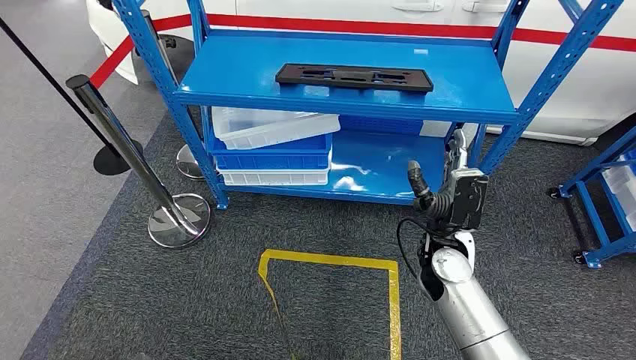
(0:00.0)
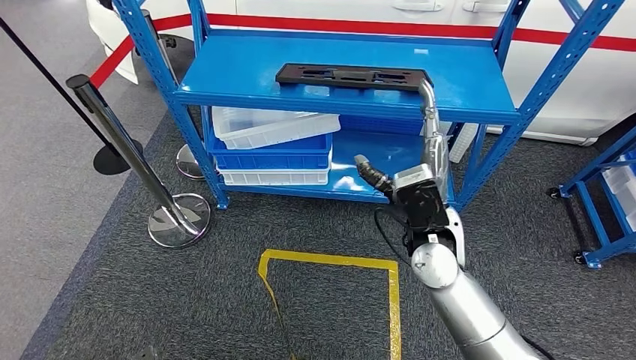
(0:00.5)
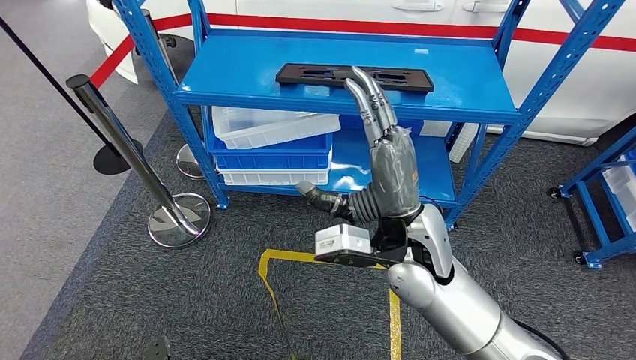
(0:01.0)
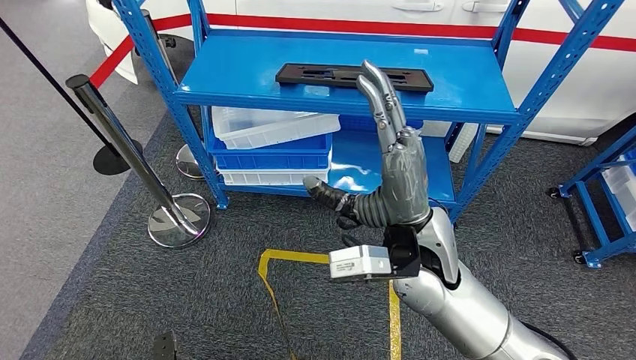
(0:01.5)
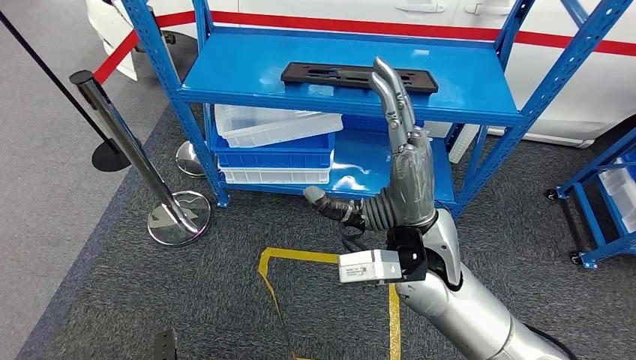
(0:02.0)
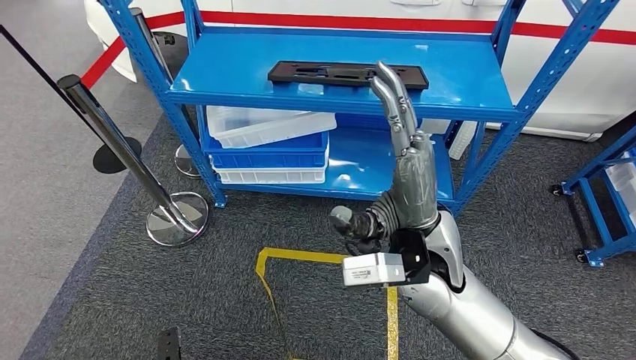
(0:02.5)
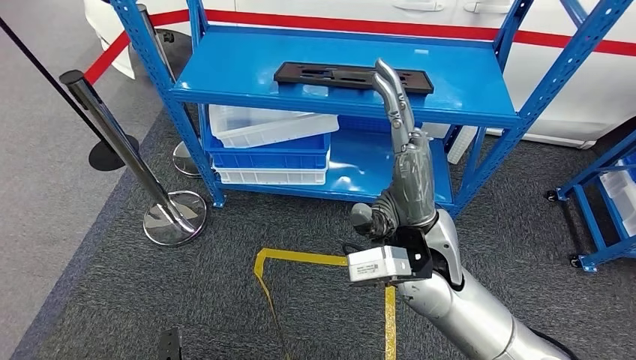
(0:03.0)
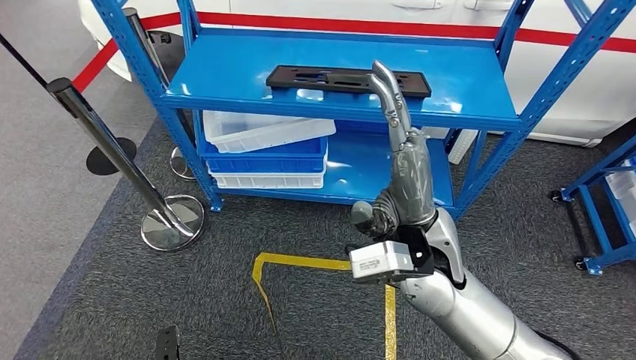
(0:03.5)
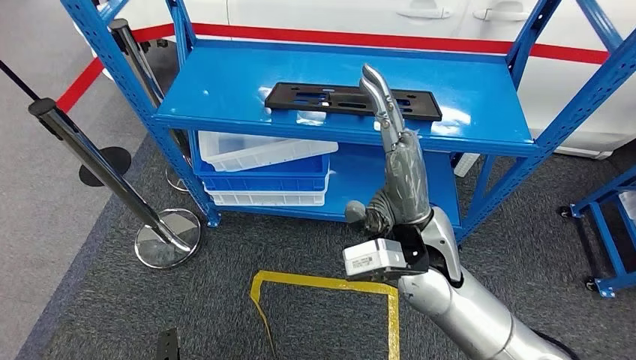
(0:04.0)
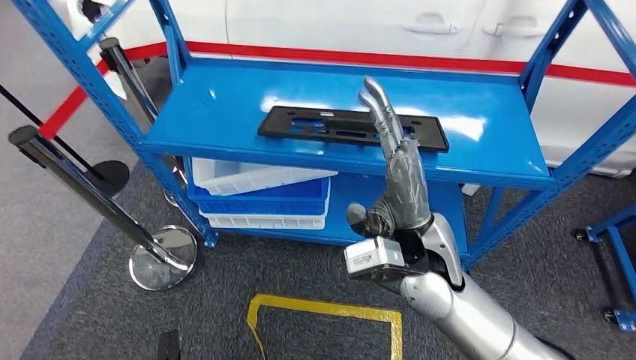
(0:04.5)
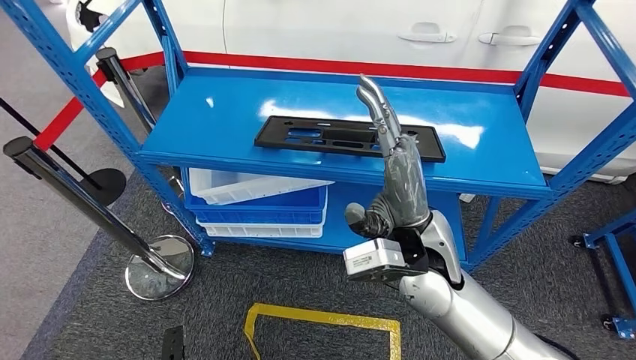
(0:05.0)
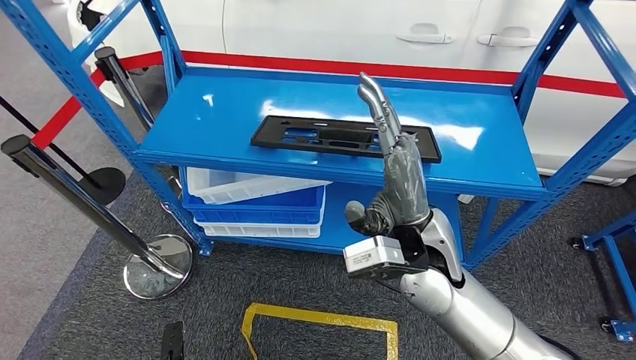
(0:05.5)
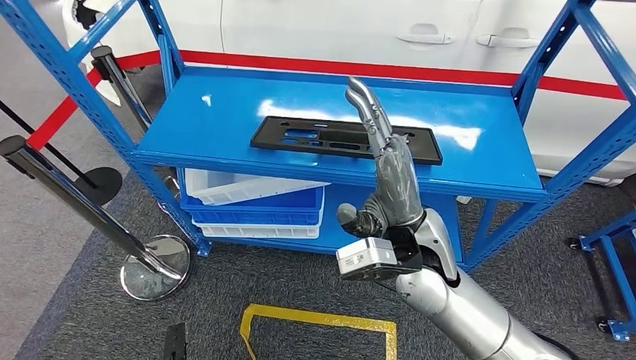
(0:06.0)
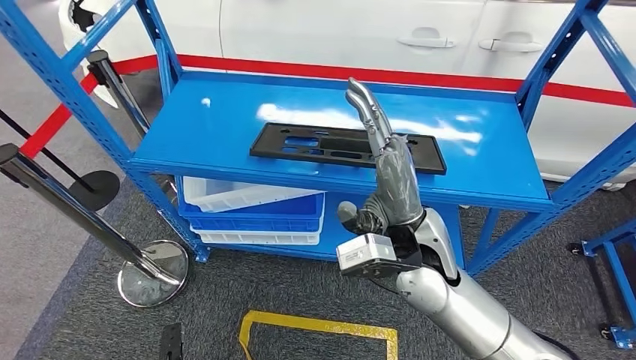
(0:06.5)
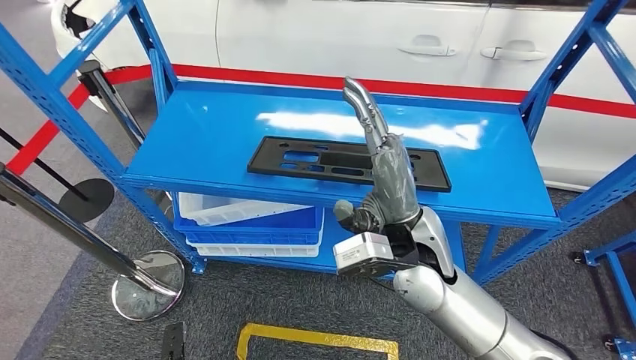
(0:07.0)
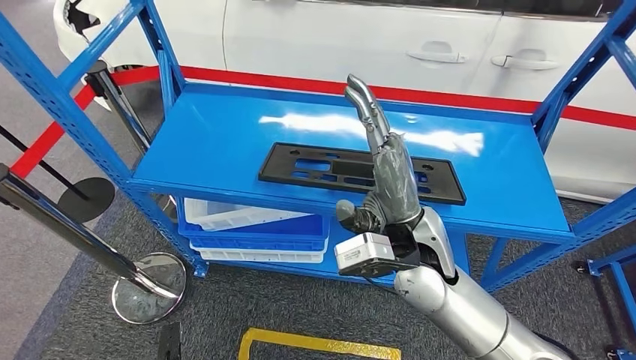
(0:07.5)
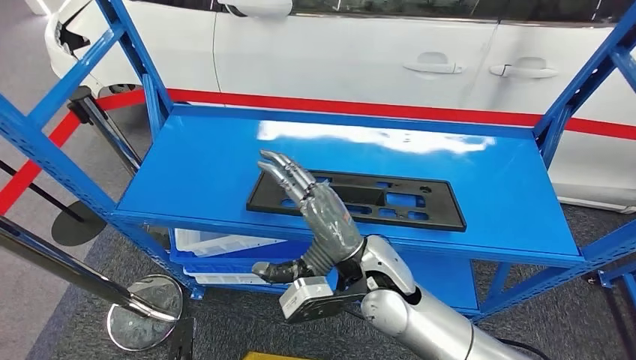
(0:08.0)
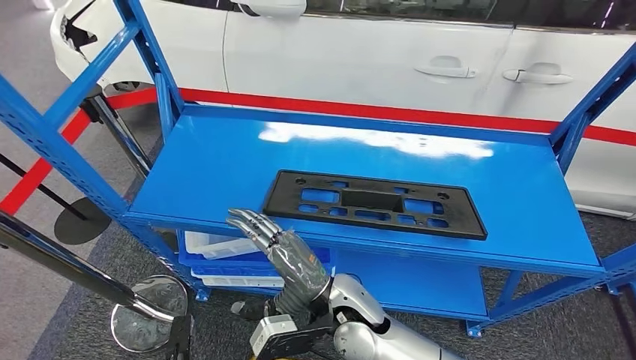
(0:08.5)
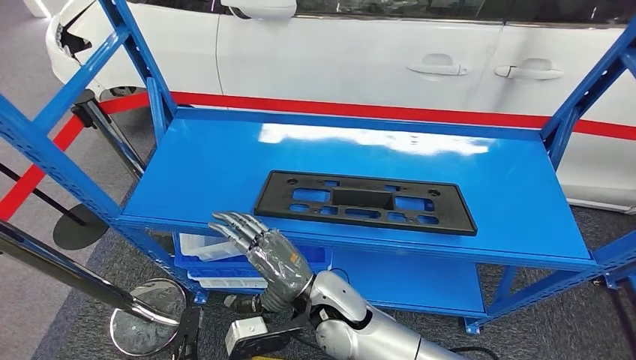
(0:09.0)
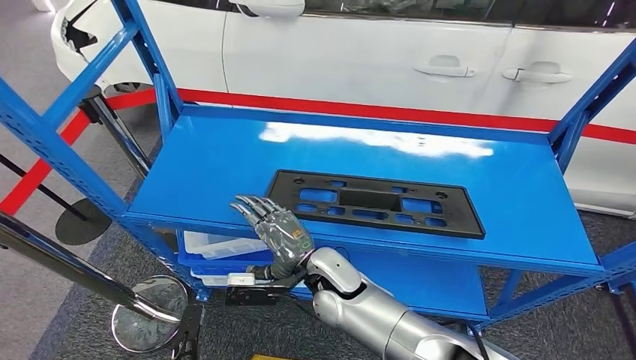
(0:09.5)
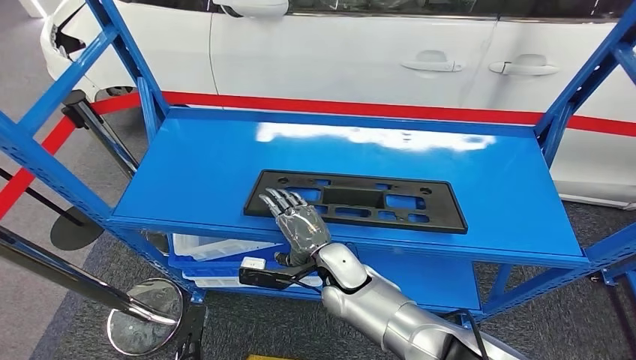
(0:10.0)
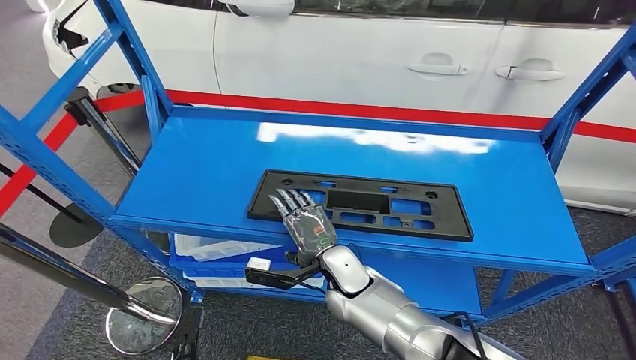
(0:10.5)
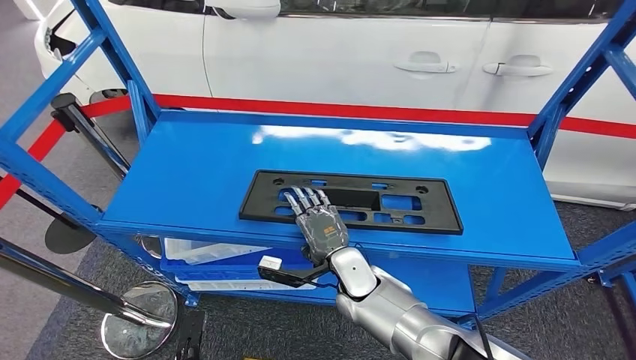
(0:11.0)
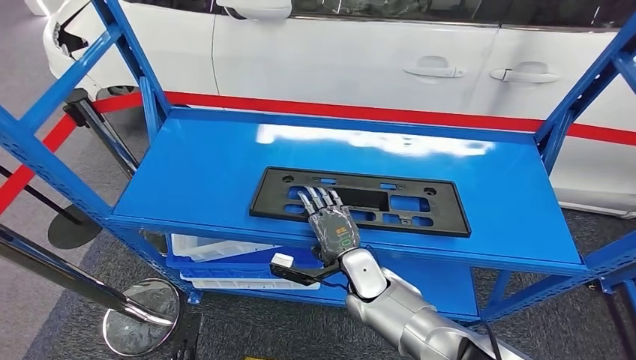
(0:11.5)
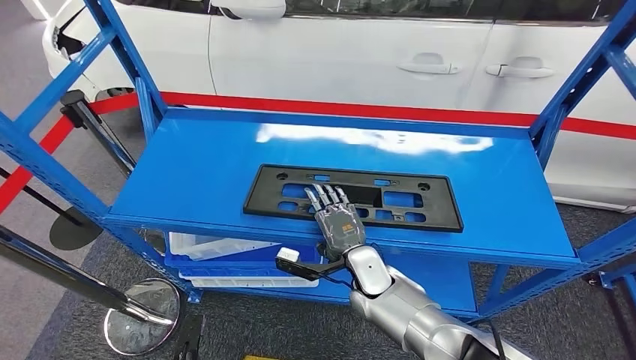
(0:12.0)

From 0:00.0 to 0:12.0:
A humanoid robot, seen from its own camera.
From 0:10.0 to 0:12.0: The right hand moves to the right, about 5 cm.

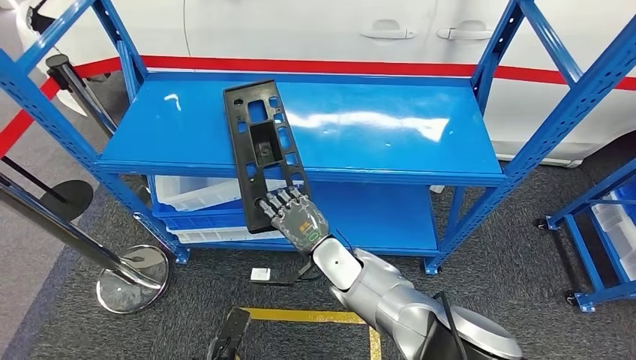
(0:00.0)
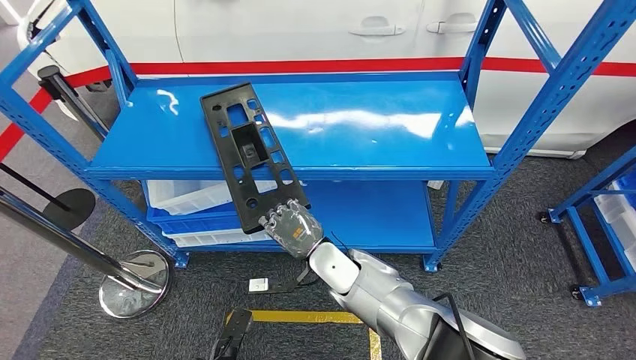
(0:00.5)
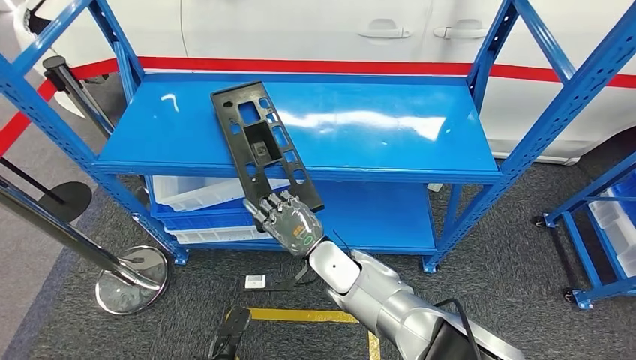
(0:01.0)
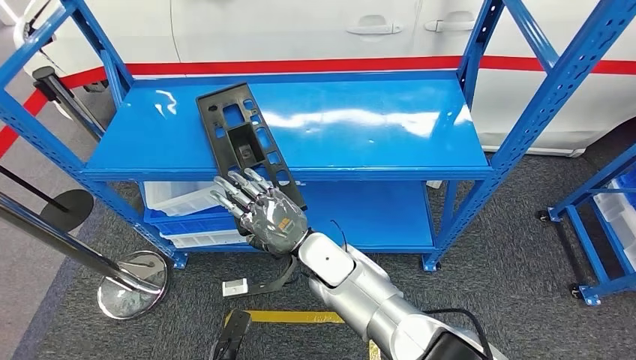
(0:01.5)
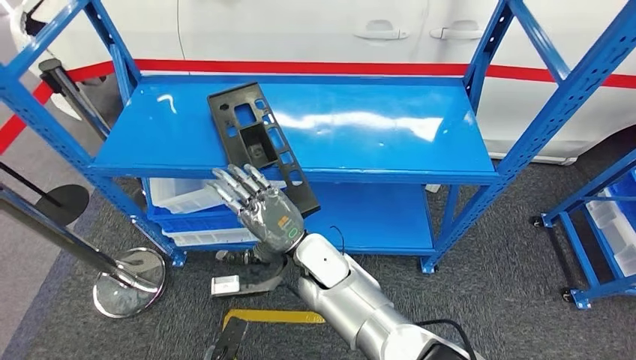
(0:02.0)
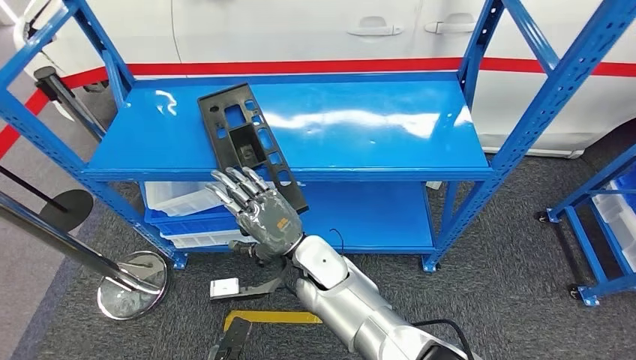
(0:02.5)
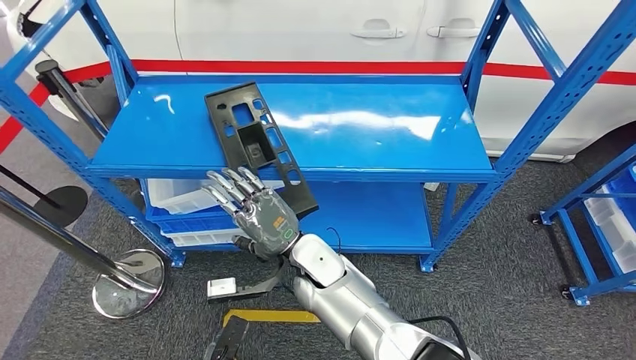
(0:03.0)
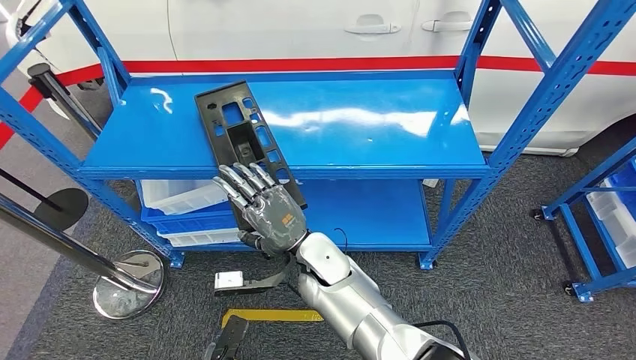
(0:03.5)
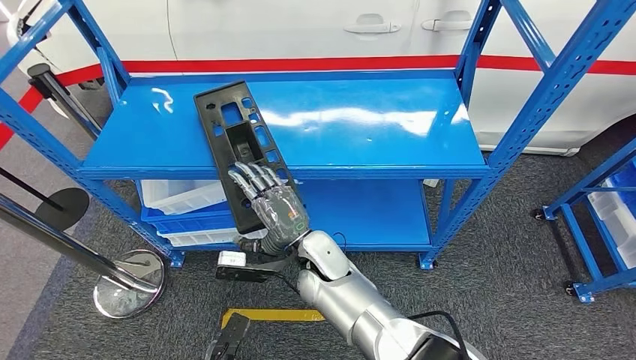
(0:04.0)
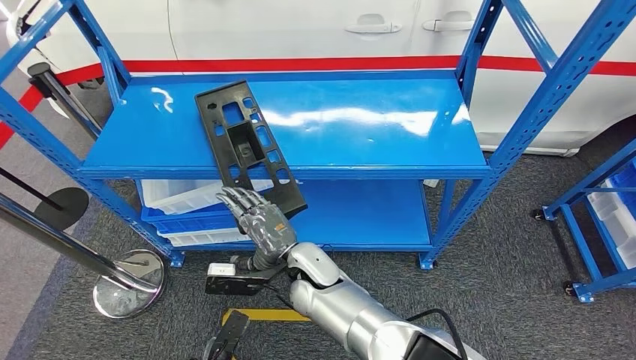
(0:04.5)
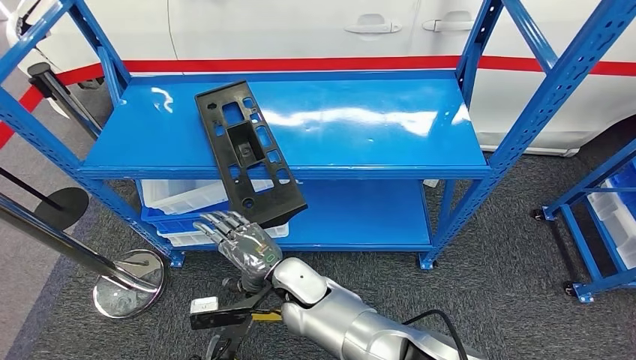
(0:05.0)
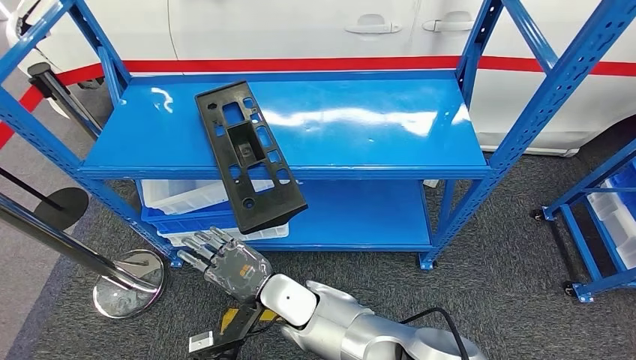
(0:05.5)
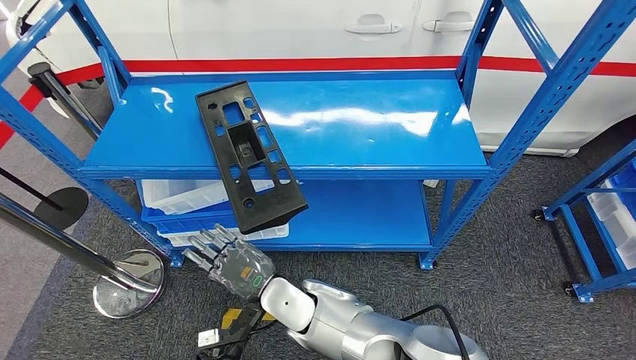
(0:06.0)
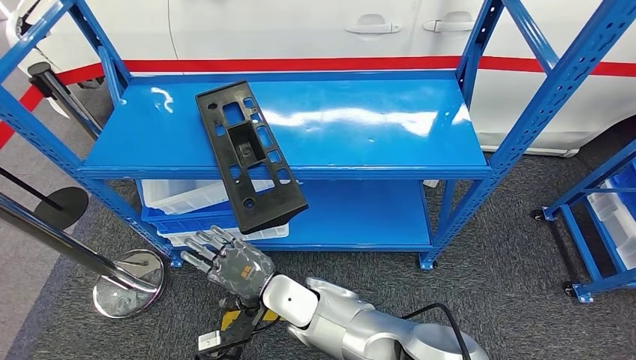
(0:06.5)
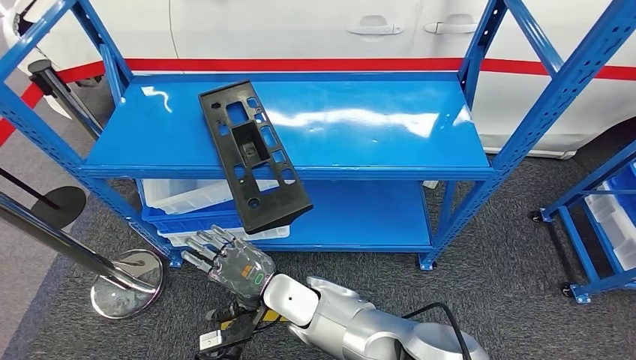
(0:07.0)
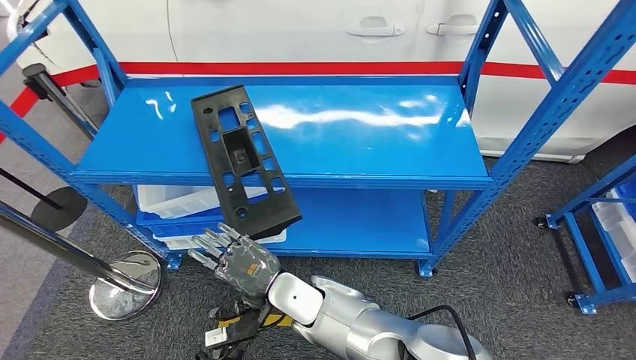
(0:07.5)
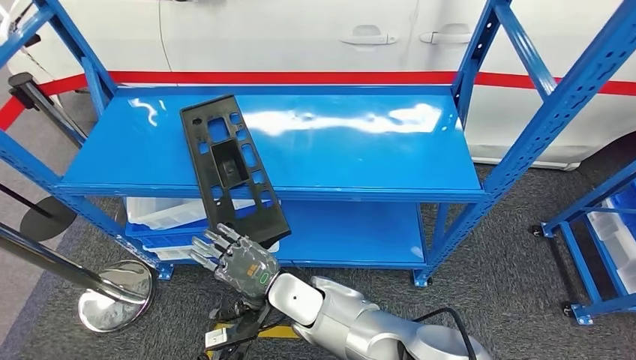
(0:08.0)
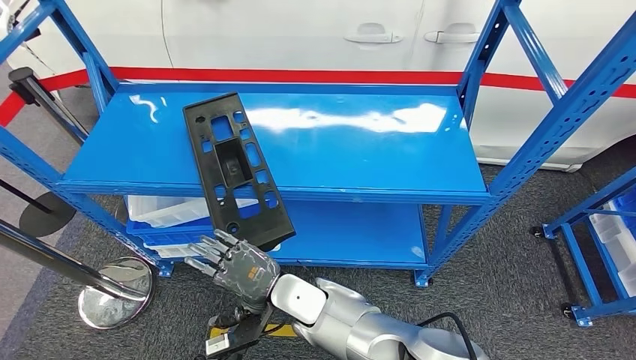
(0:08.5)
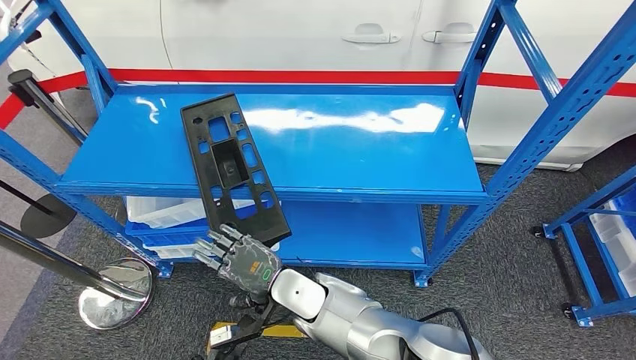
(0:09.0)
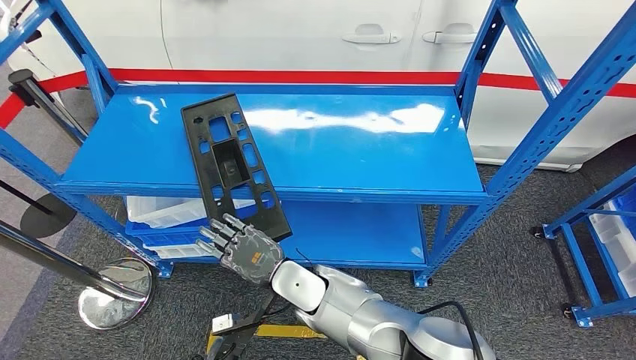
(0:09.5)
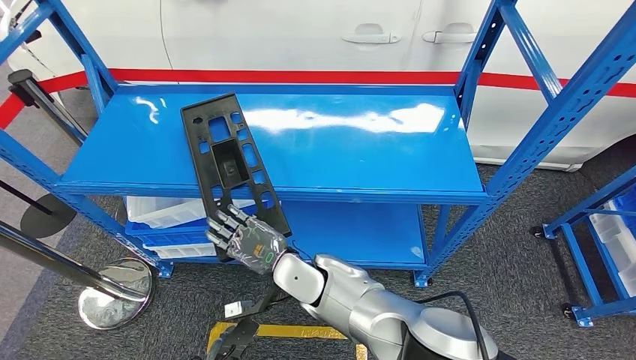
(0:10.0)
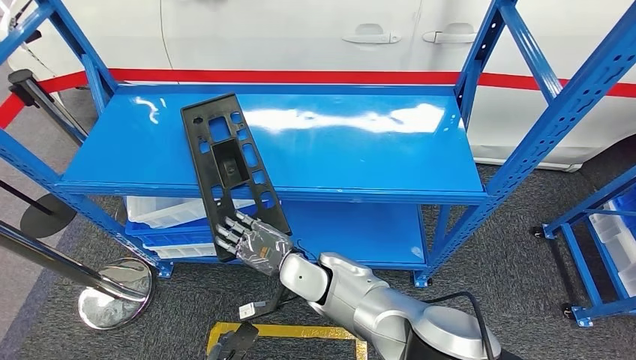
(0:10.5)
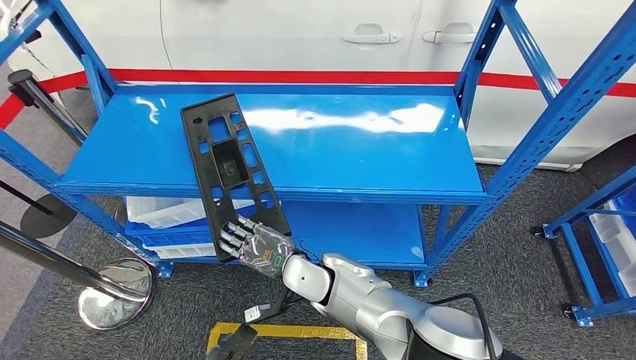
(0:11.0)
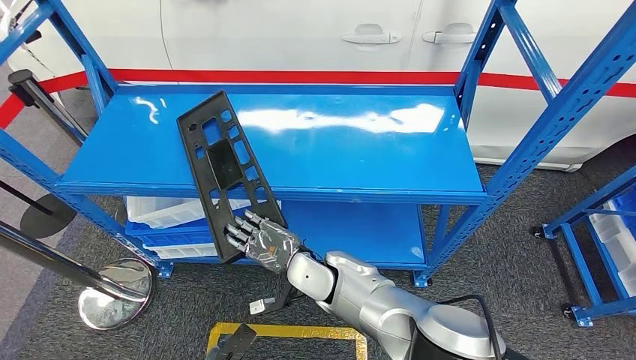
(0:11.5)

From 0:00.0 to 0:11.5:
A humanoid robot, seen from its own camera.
From 0:04.0 to 0:06.0: The right hand heads backward and to the left, covering some 5 cm.
